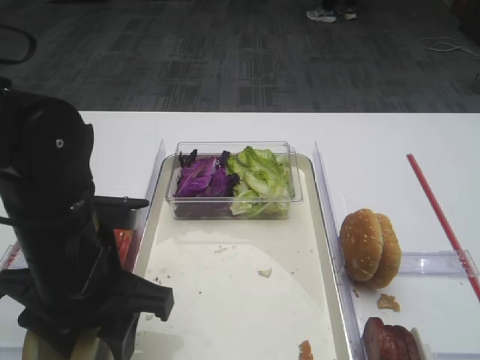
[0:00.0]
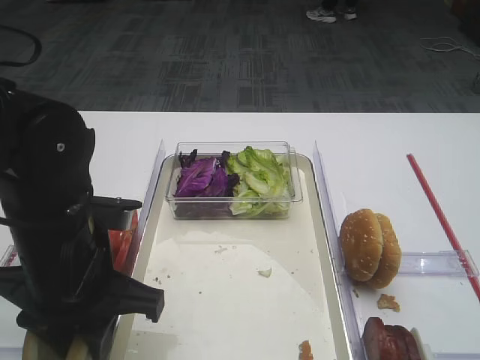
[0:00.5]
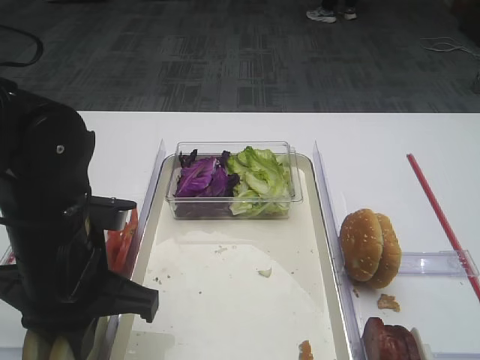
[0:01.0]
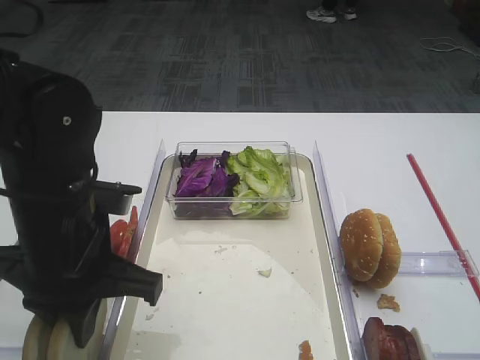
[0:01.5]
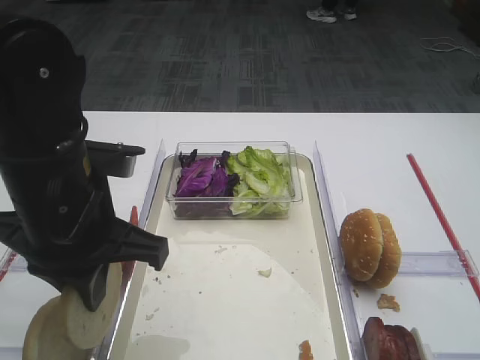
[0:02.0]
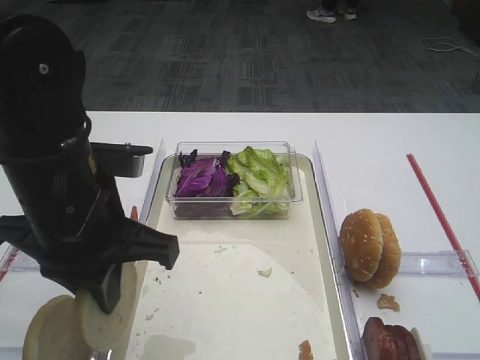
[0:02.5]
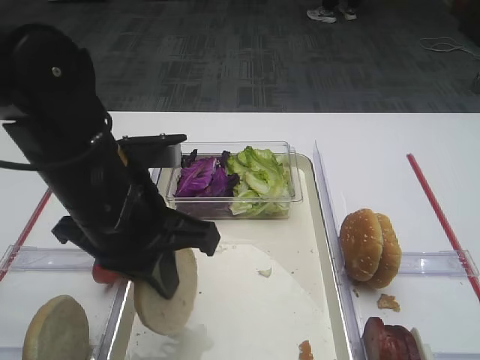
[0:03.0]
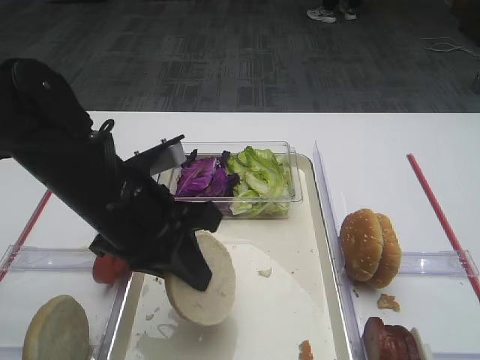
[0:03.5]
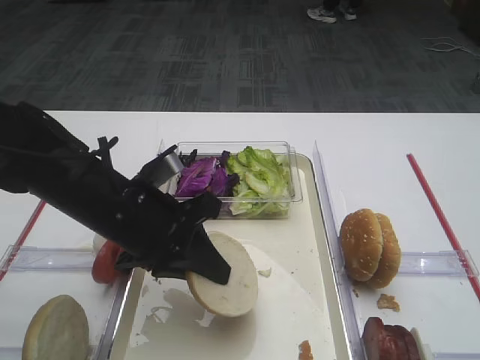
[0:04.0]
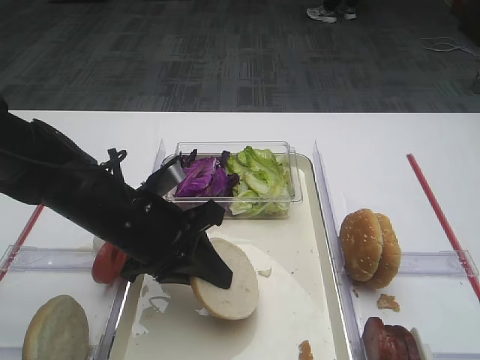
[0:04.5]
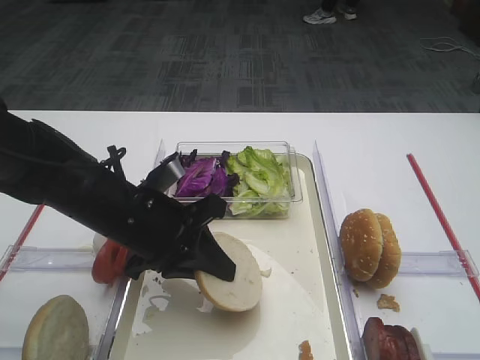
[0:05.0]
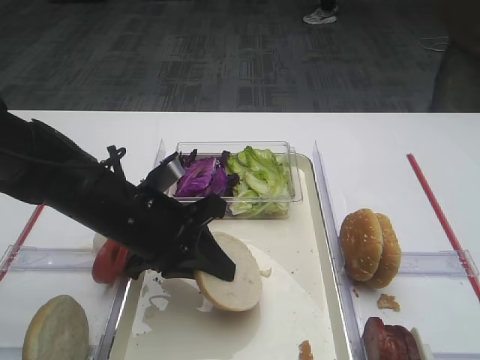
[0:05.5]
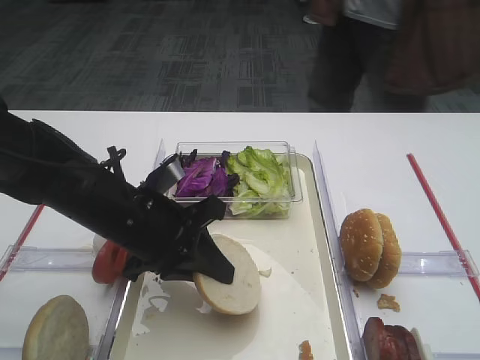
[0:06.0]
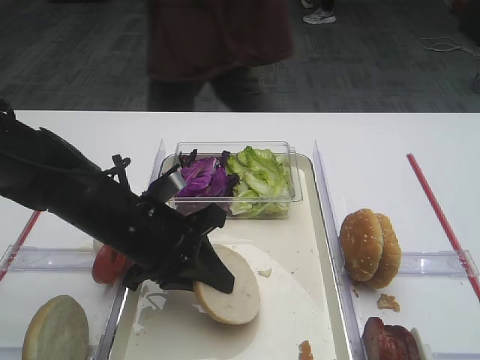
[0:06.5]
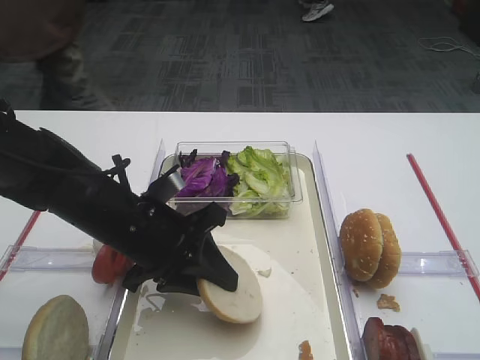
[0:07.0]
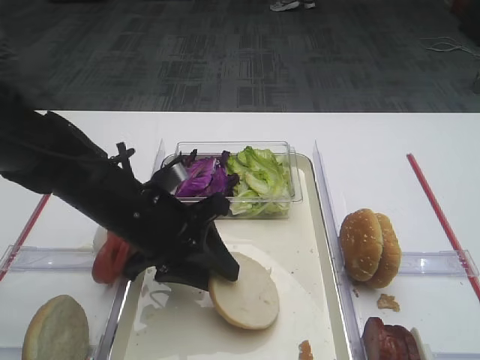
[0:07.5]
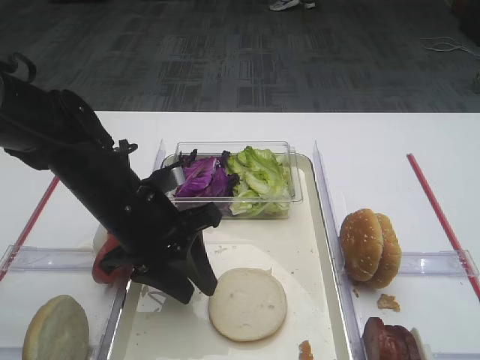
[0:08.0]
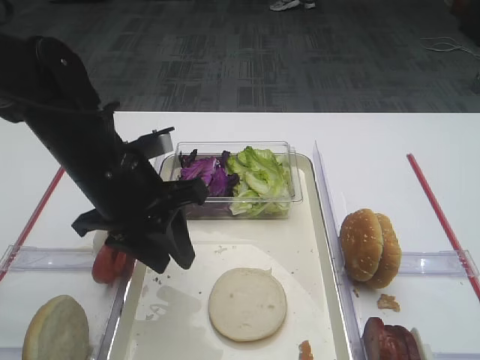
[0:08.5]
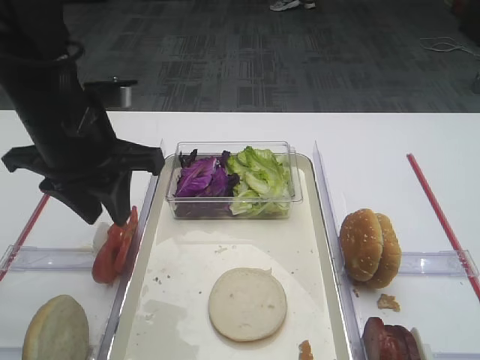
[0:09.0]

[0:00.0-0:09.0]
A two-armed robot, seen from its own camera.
Step, 0:02.0 to 0:08.0: Place the bread slice on the tray with the left gripper.
0:00.0 to 0:02.0: The left gripper changes place by about 5 cm, and closes.
0:02.0 to 0:04.5: The left gripper is displaced downward by about 10 cm.
0:04.5 to 0:07.0: The left gripper opens up.
0:07.0 to 0:09.0: The left gripper heads upward and to the left, covering approximately 15 cm.

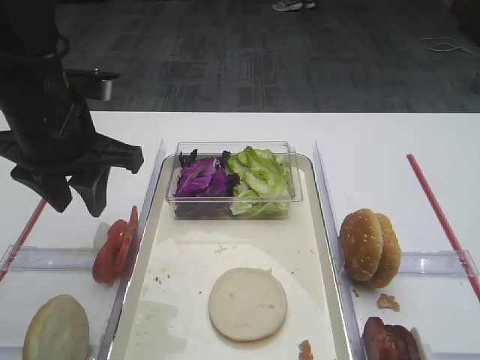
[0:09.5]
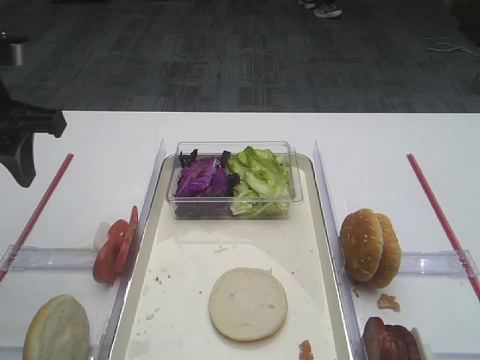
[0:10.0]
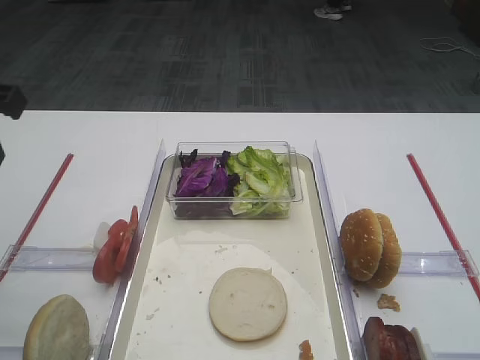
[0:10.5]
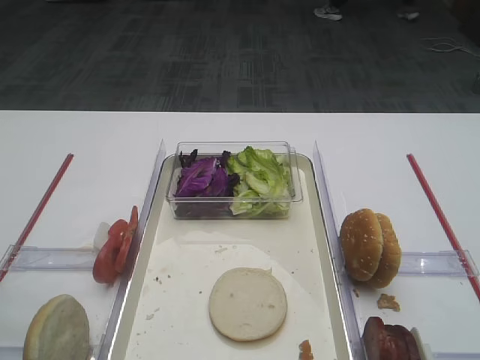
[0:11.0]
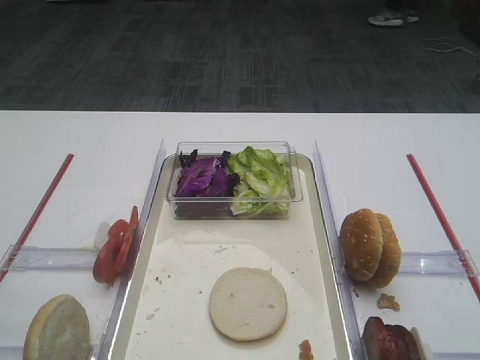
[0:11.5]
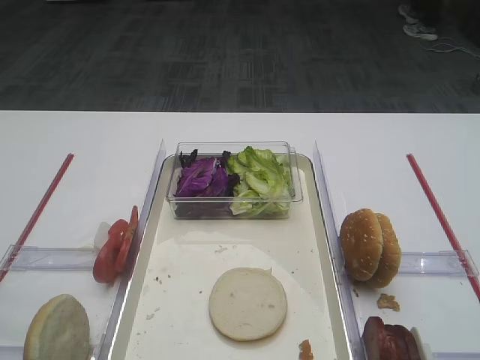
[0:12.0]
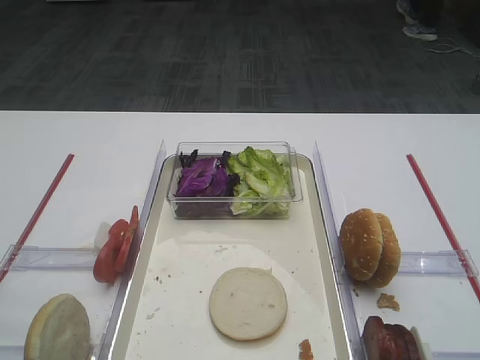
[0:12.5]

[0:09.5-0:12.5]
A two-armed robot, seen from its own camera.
0:09.5 to 0:11.0: The left gripper is displaced backward, to the left and upward by about 20 cm.

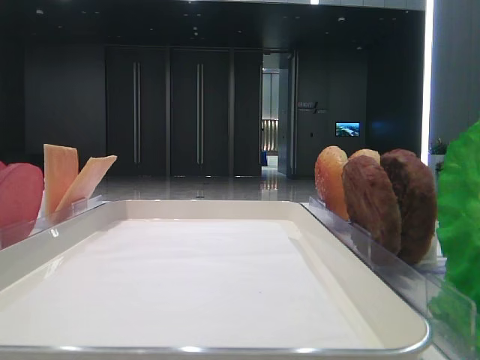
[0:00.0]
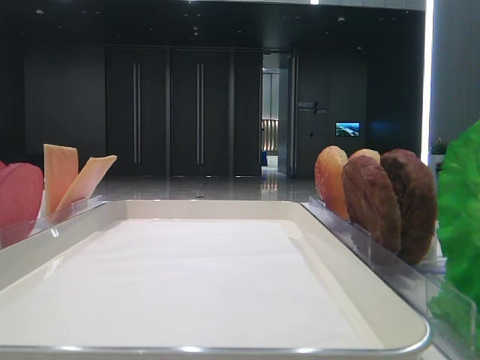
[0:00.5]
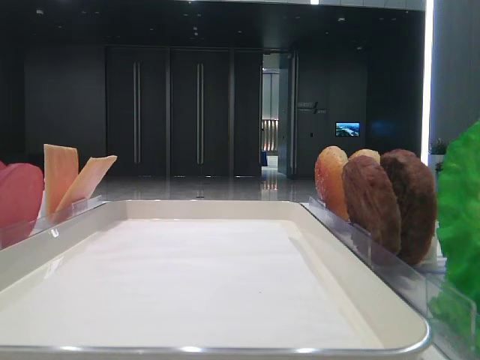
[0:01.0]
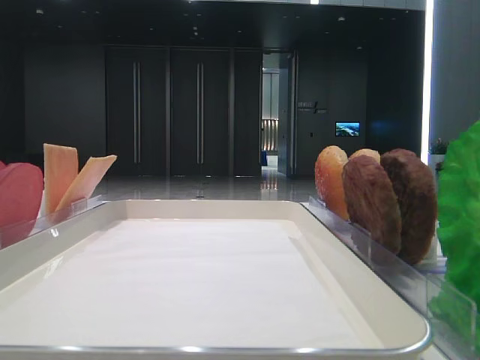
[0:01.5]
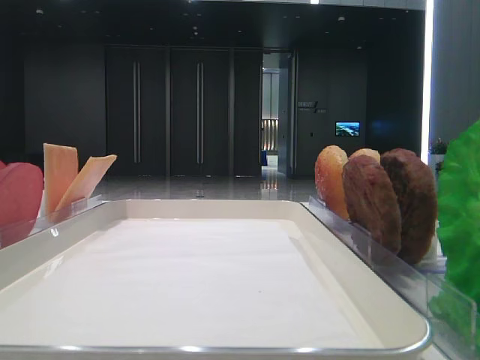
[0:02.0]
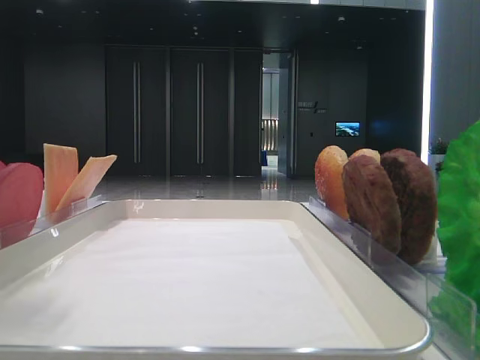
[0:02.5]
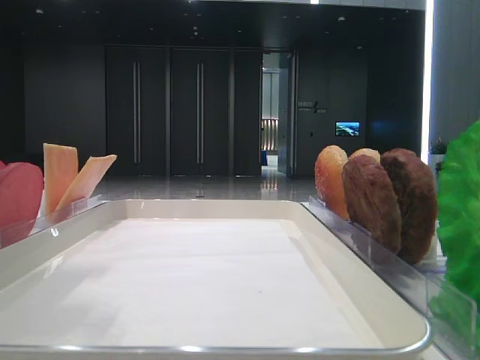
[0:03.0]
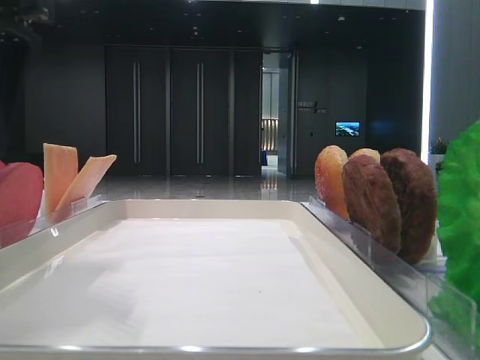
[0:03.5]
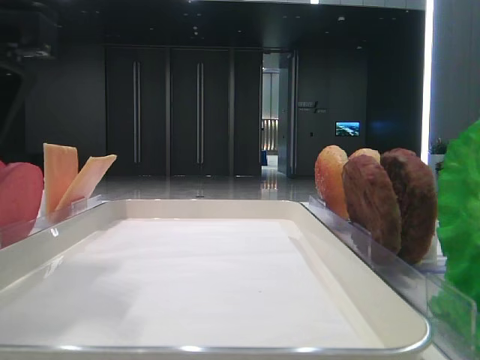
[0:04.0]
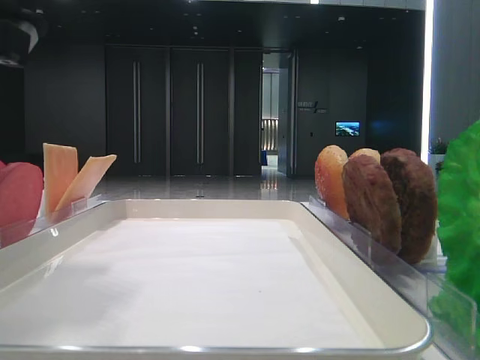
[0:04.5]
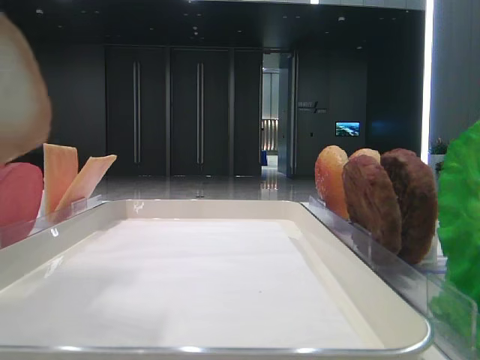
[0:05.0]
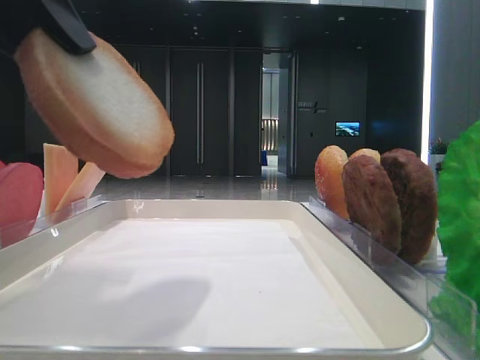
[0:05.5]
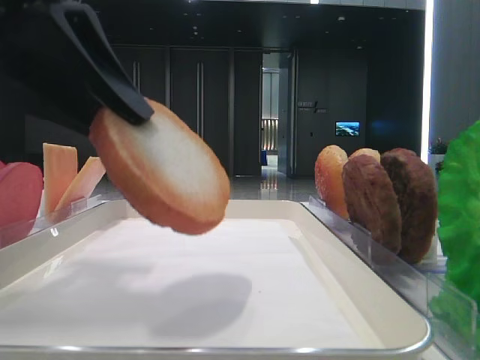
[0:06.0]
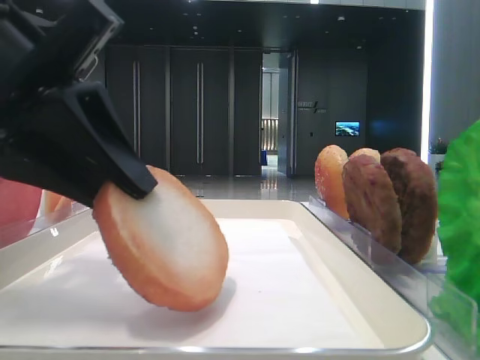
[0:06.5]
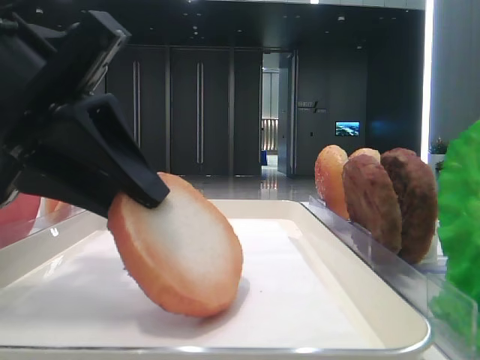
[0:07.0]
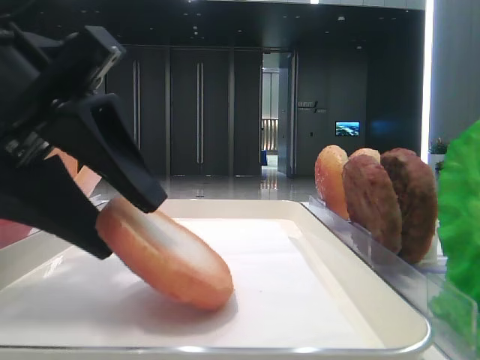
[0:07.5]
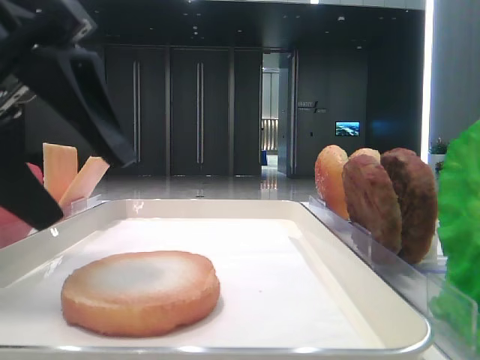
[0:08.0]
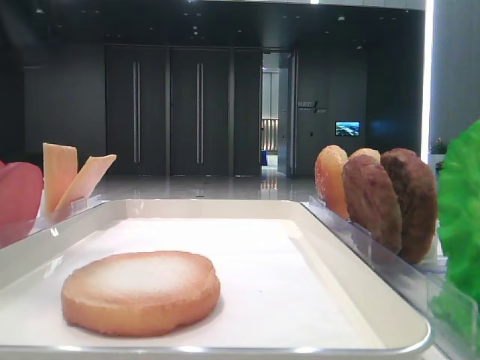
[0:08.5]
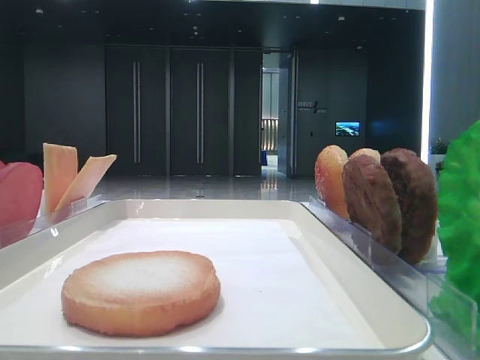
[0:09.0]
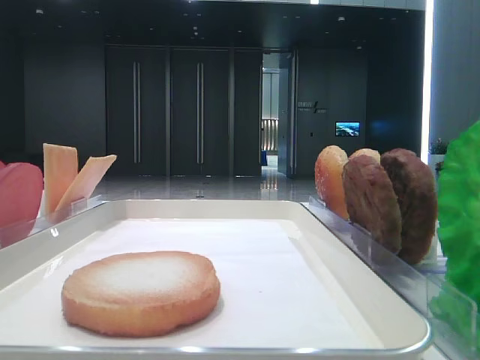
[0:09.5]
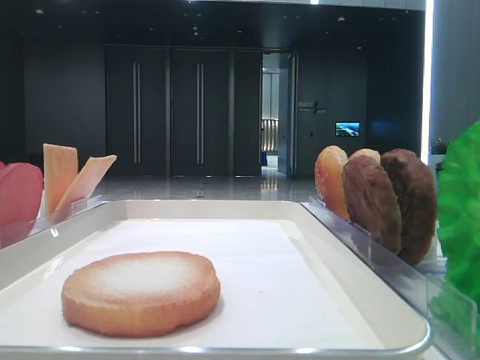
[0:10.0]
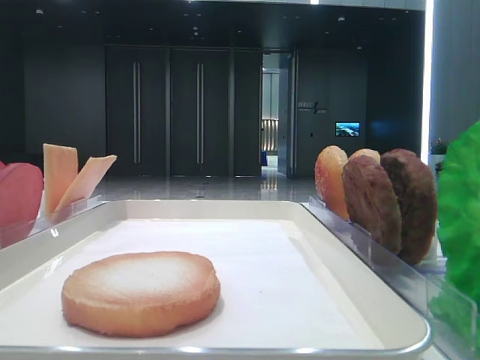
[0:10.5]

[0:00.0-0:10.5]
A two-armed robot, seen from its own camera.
Step, 0:00.0 to 0:04.0: Pick up the bottom bread with the left hand.
Step, 0:04.5 to 0:07.5: Place the bread on the tray with the left hand.
0:02.0 to 0:04.0: The left gripper moves to the right and downward, roughly 15 cm.
0:04.0 to 0:06.5: The left gripper heads downward, covering about 5 cm, and closes.
0:06.5 to 0:08.5: The left gripper goes approximately 15 cm upward and to the left, and opens its fingers.
0:08.5 to 0:10.5: The left gripper is displaced backward by roughly 25 cm.

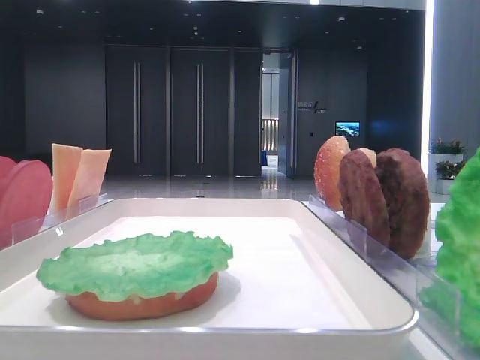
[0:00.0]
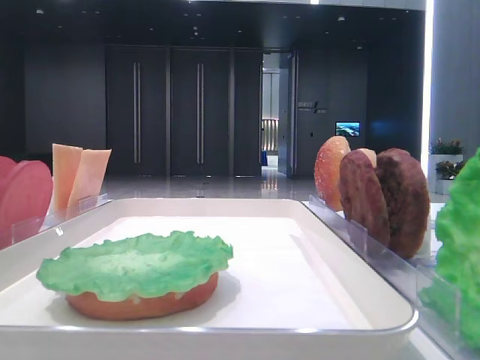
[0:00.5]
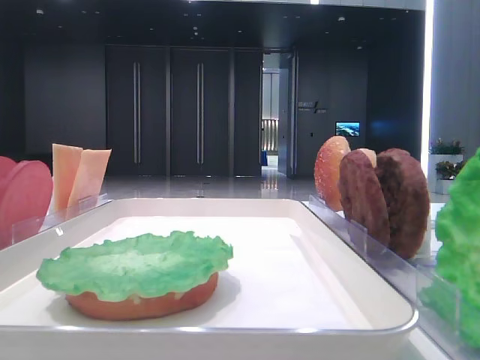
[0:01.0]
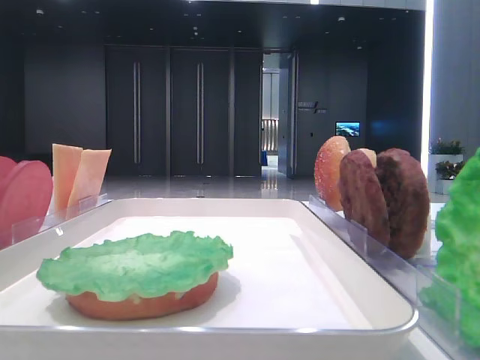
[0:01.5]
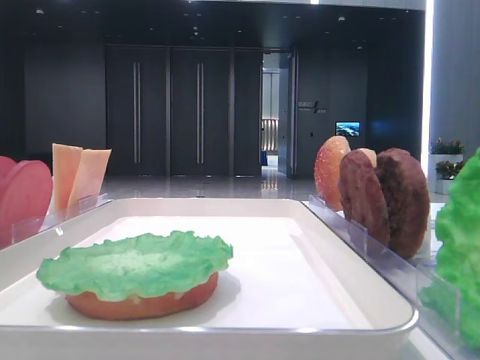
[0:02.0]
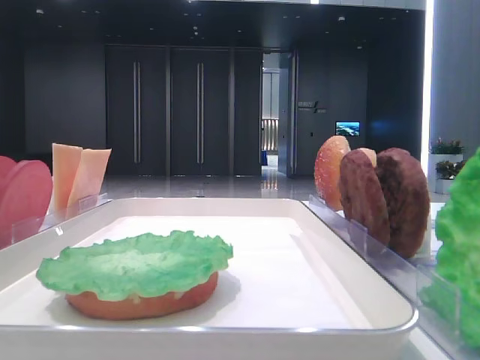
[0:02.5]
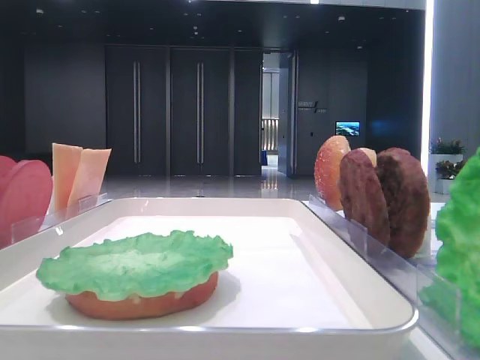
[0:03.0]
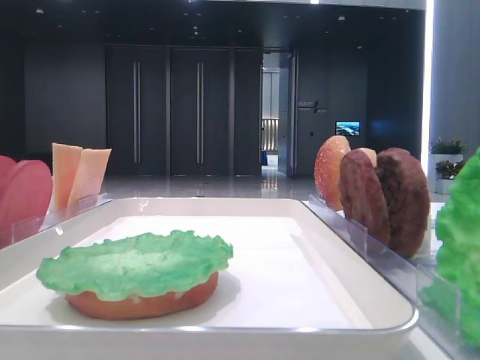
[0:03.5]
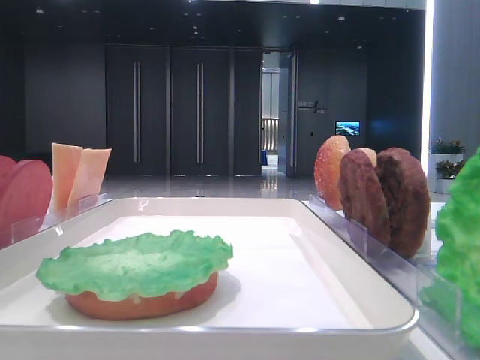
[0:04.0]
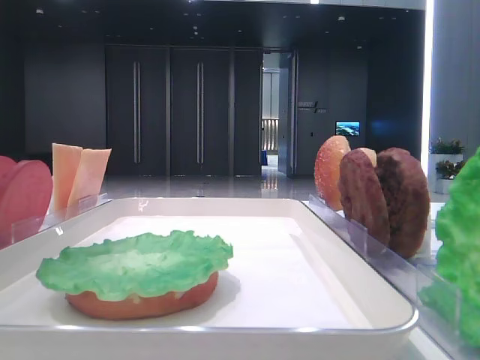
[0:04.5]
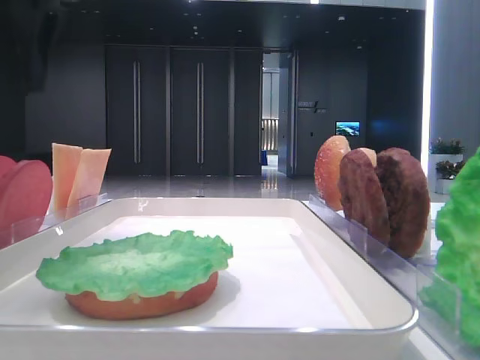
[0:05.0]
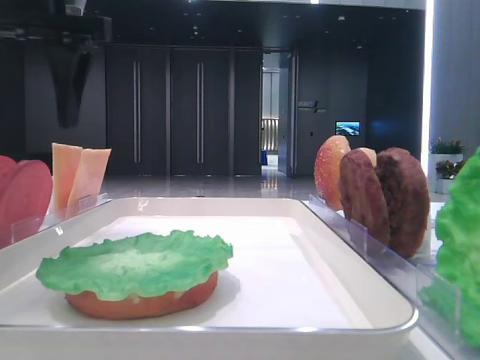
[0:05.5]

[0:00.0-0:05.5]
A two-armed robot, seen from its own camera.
0:03.5 to 0:05.5: The left gripper goes roughly 15 cm to the right and downward.
